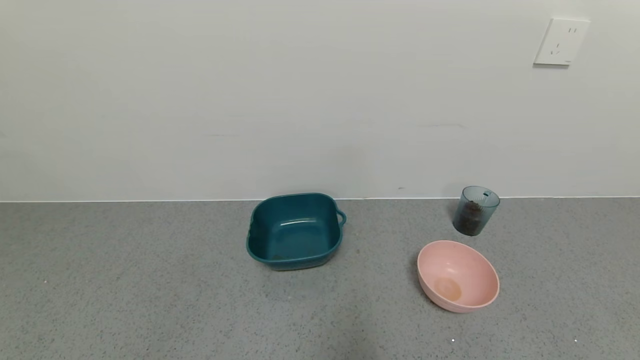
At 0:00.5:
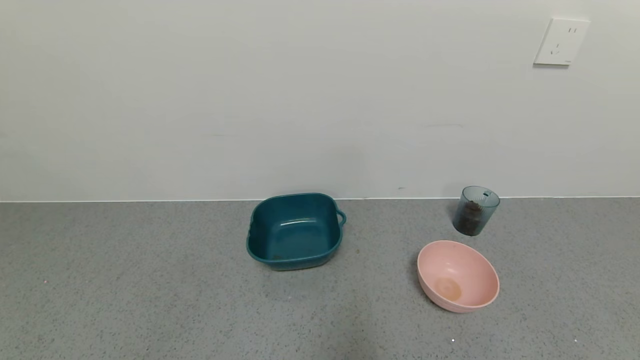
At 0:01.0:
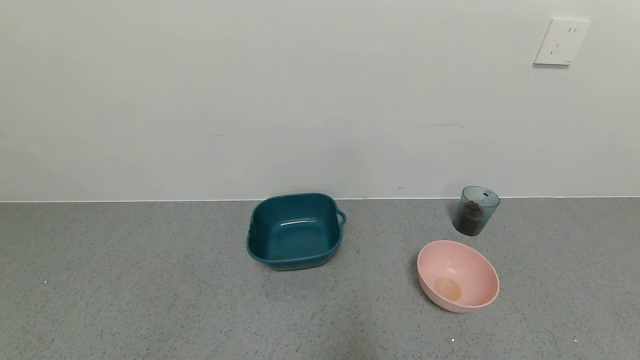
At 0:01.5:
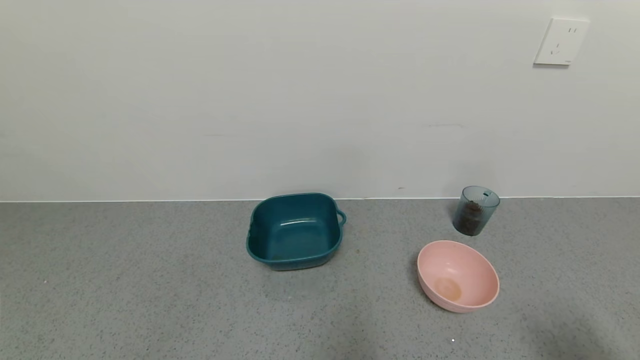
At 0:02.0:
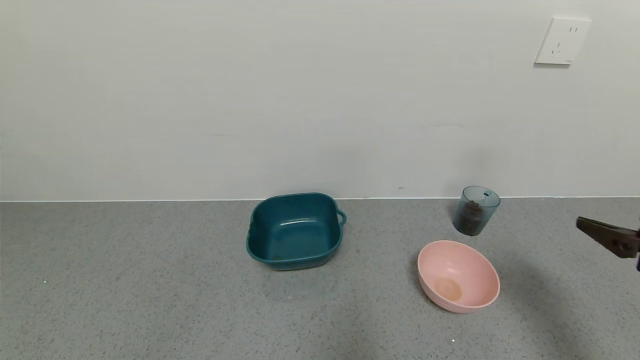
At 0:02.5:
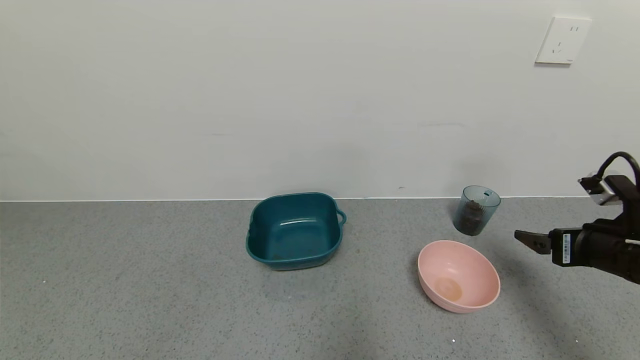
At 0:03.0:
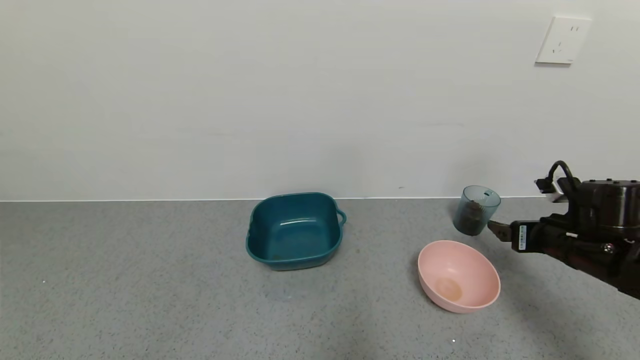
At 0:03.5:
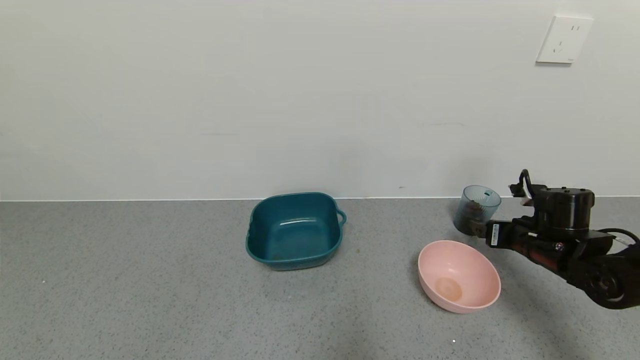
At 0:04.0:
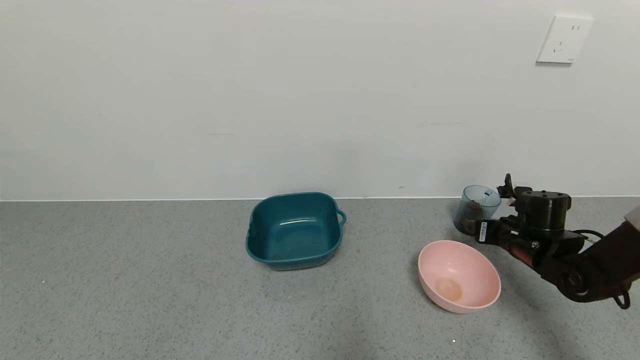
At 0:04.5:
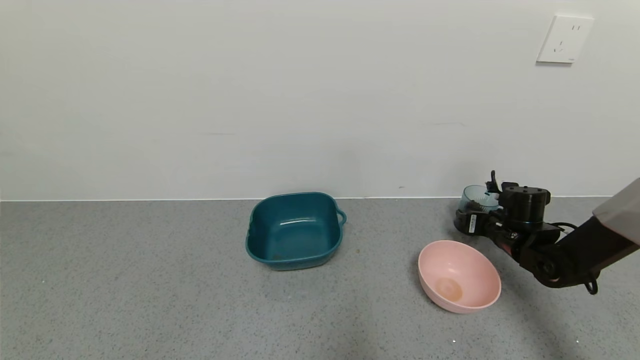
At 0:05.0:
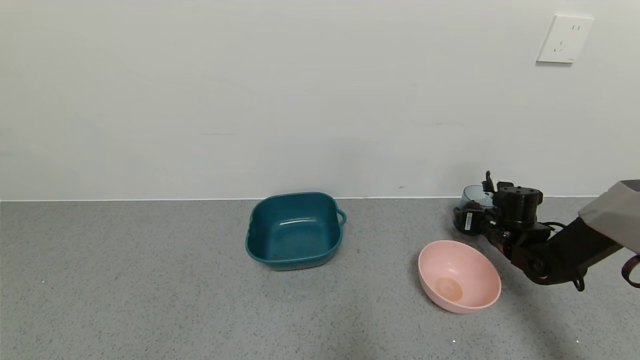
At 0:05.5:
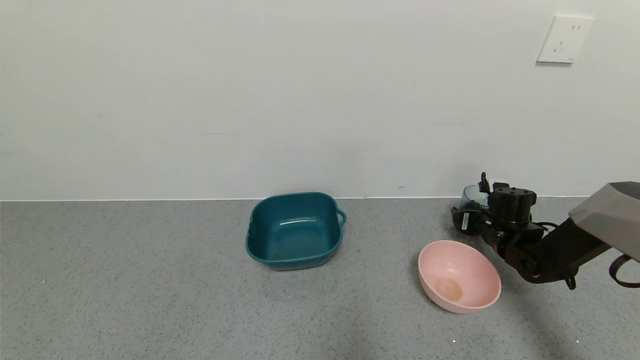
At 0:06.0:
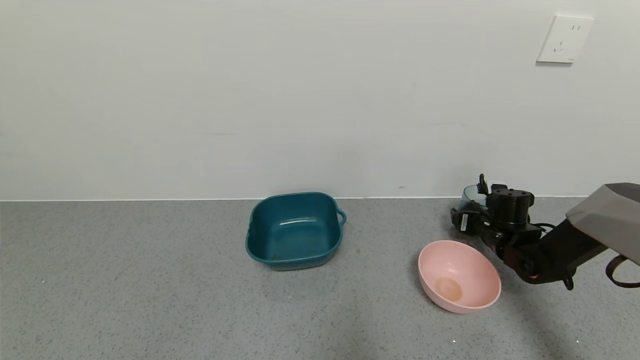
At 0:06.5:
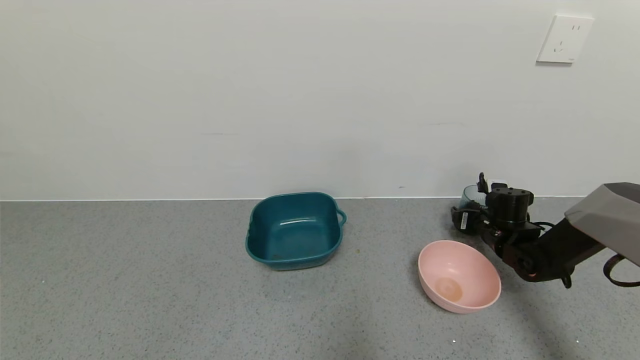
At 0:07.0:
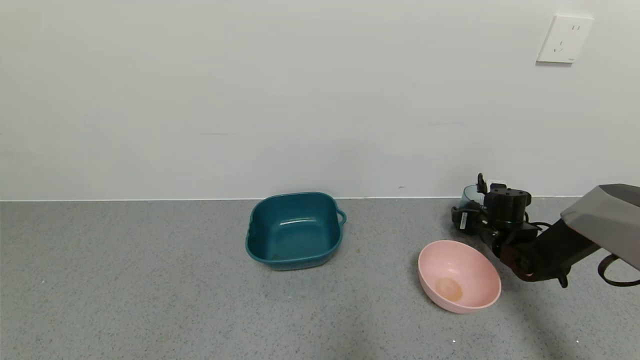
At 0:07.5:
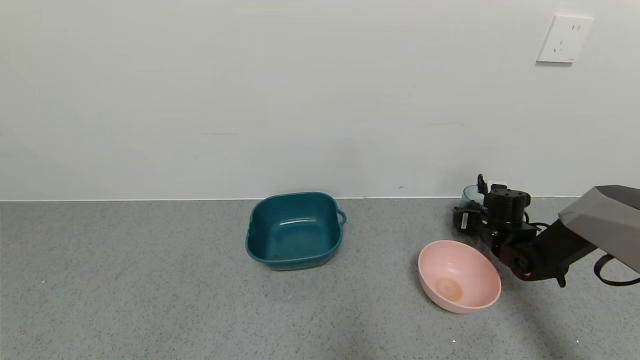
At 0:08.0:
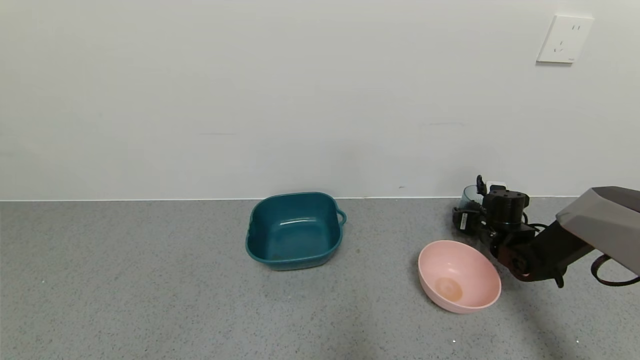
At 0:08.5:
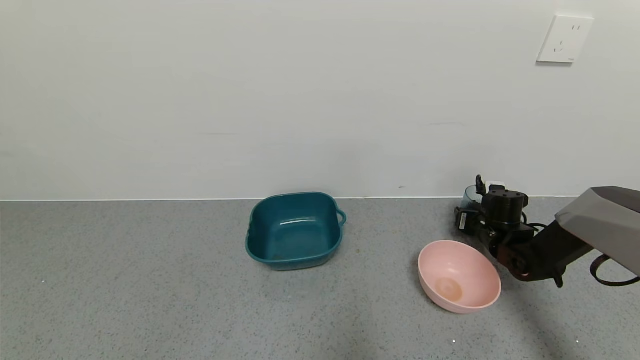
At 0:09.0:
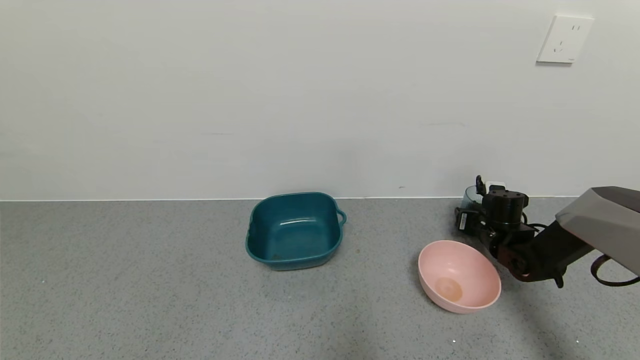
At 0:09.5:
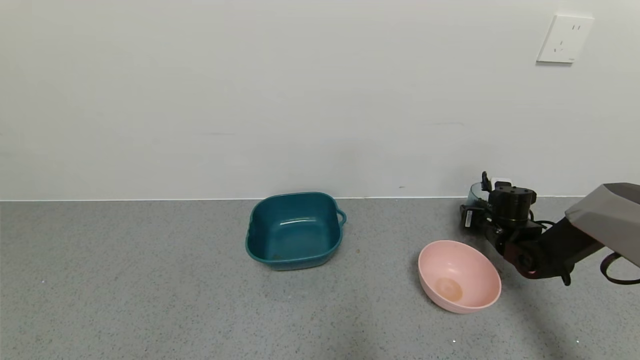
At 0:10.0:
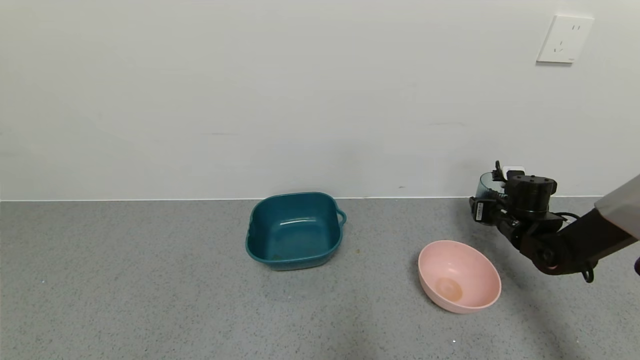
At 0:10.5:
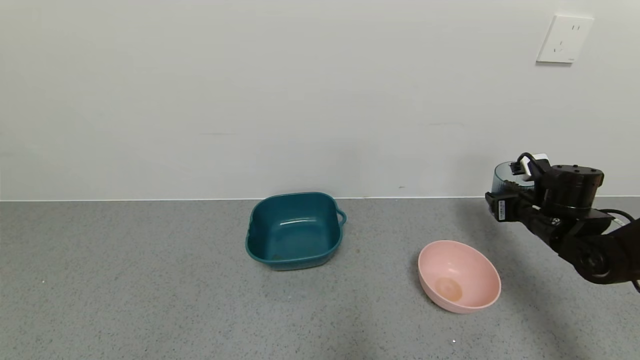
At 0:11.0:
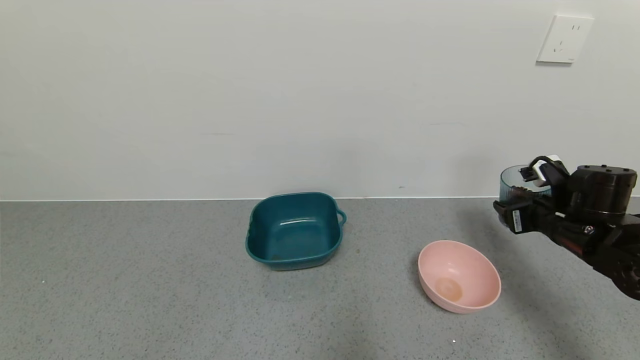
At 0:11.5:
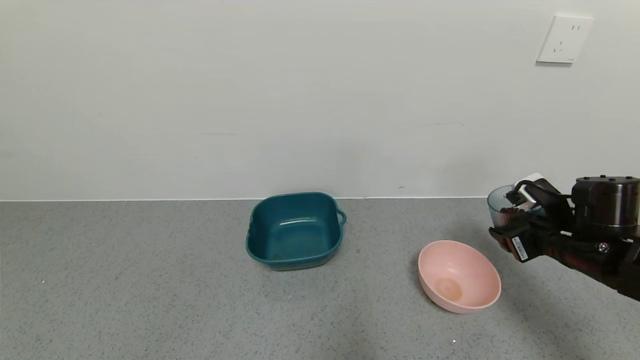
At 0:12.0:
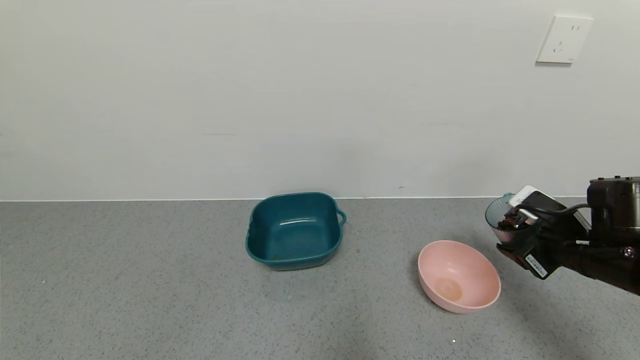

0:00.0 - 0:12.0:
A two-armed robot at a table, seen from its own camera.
Task of the whole recording: use a gripper to pick up the cup and pour the solid into a bowl or tray.
Step, 0:00.0 - 0:09.0: Grasp the glass of coffee beans with the right gripper.
0:00.0 - 0:02.0: The right gripper heads forward and upward, covering roughly 25 cm.
0:02.0 - 0:04.0: The right gripper is displaced forward and downward by some 25 cm.
0:04.0 - 0:06.0: The right gripper moves forward, roughly 5 cm.
0:06.0 - 0:08.0: There are only small adjustments of the grippers.
0:08.0 - 0:10.0: The right gripper changes place by approximately 5 cm, and closes.
0:10.0 - 0:12.0: The right gripper moves backward and upward, approximately 15 cm.

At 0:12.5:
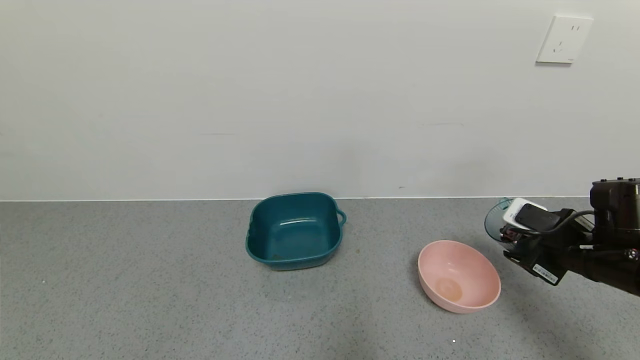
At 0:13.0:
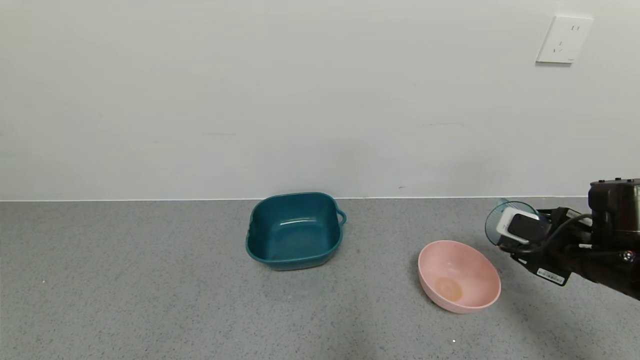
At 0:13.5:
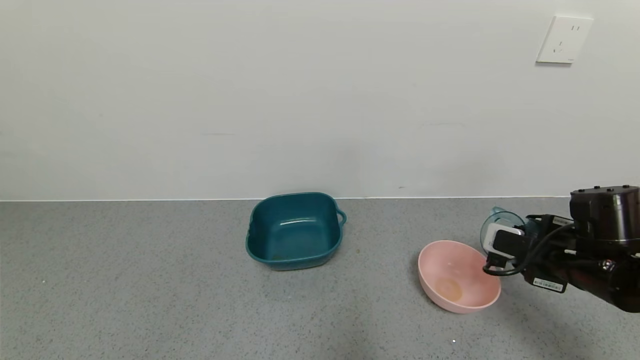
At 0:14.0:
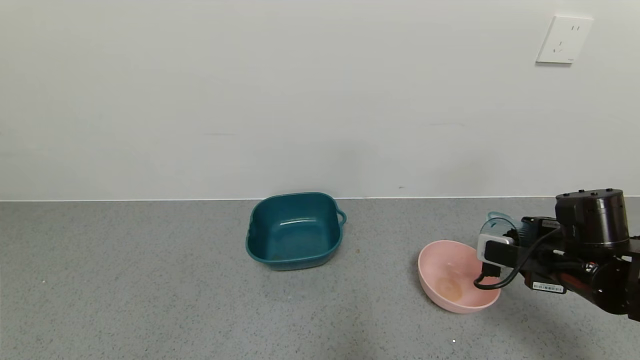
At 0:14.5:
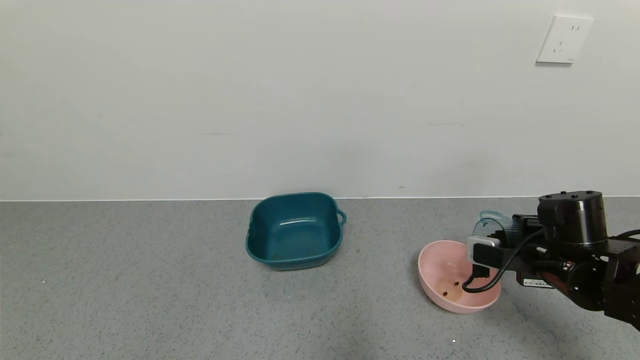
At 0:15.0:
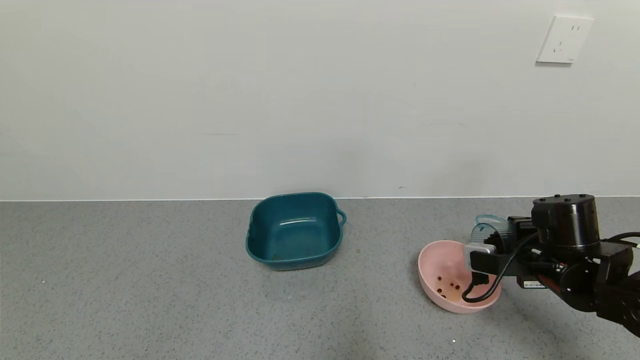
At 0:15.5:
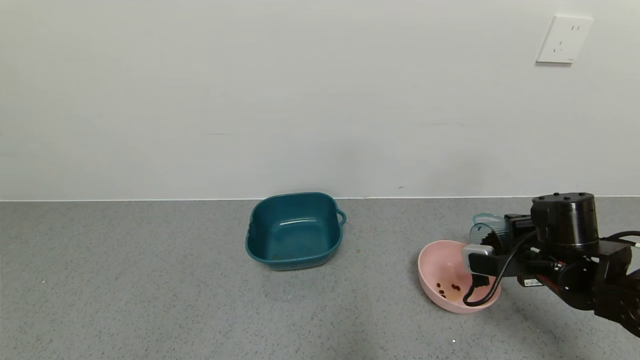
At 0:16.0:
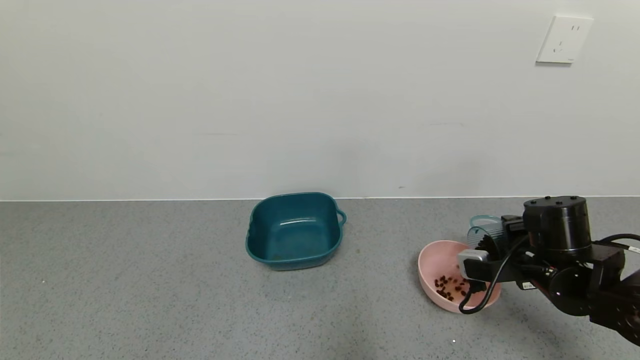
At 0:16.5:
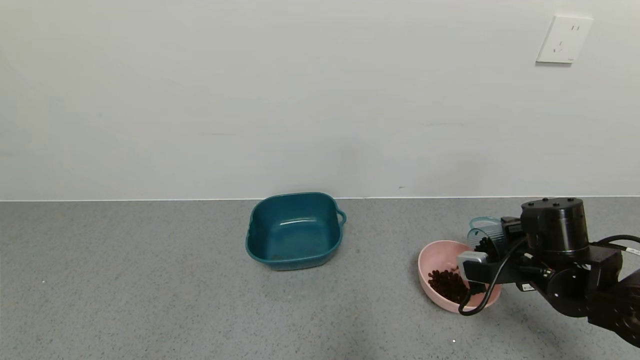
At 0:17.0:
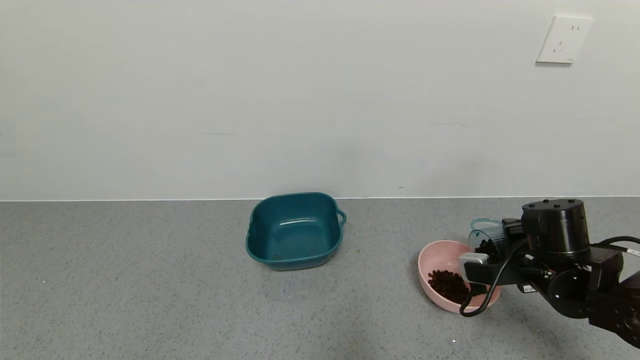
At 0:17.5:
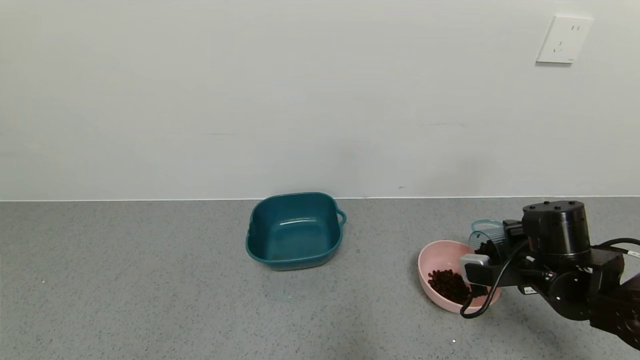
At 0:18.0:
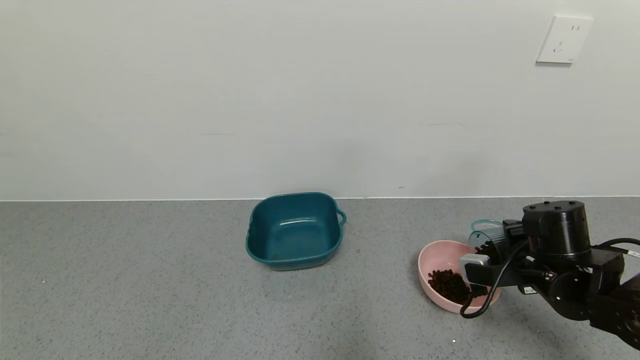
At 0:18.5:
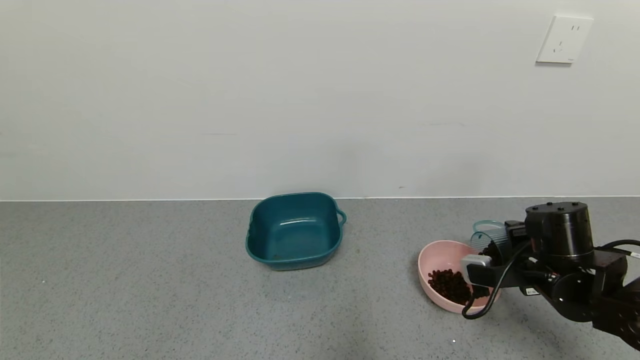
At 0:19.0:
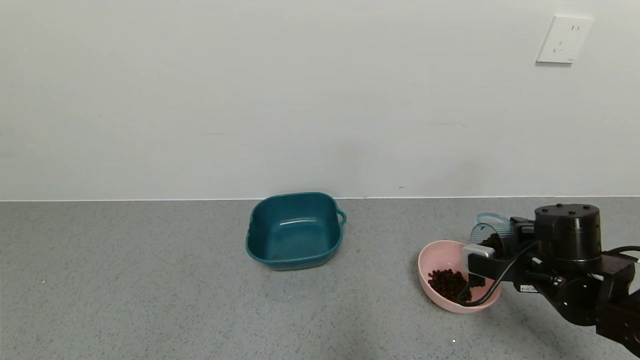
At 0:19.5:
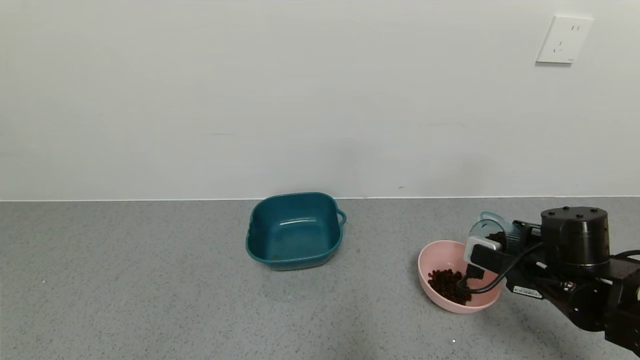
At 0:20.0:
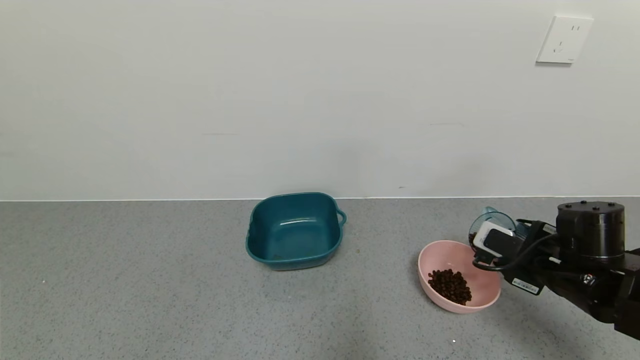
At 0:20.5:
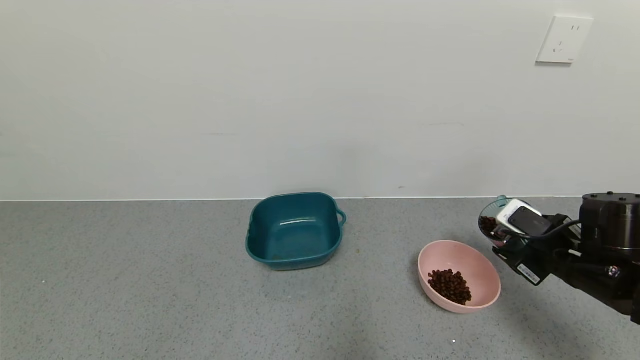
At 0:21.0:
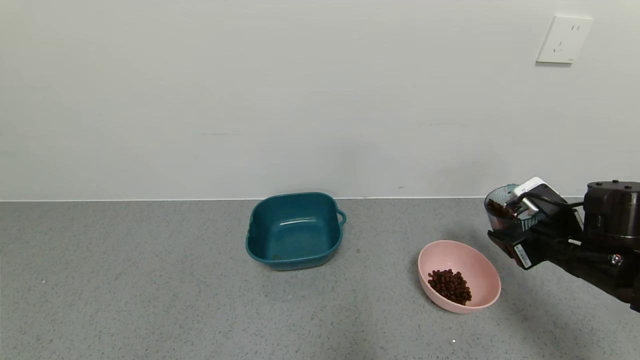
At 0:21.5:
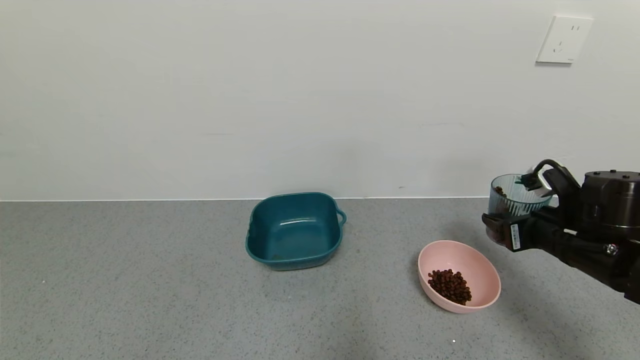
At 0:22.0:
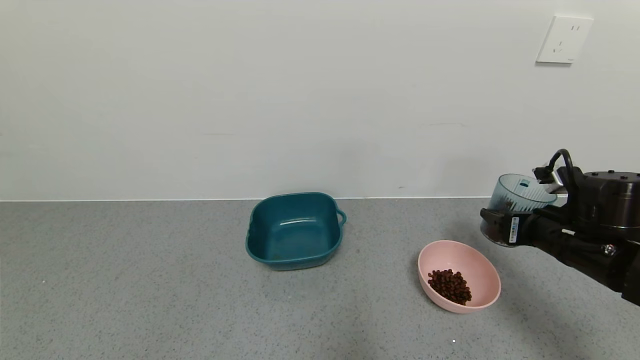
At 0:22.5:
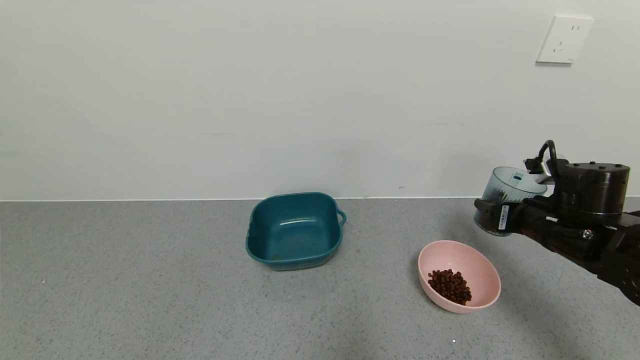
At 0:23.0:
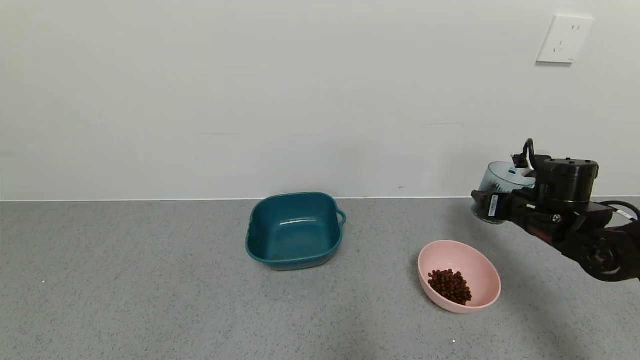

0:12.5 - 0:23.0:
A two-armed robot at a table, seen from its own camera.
Task of the whole recording: use a gripper to pick up the cup and pour the solid into a bowl or tray.
Step, 0:12.5 - 0:20.5: Pour the coffee beans into the pink bowl with the right gripper.
0:14.5 - 0:19.0: The grippers stay close to where they were, moving slightly.
0:21.0 - 0:23.0: The right gripper goes some 10 cm forward.
